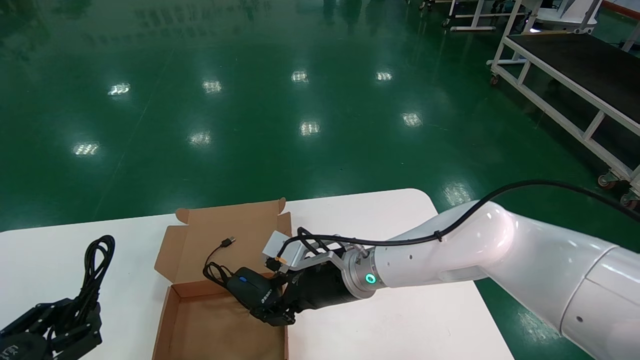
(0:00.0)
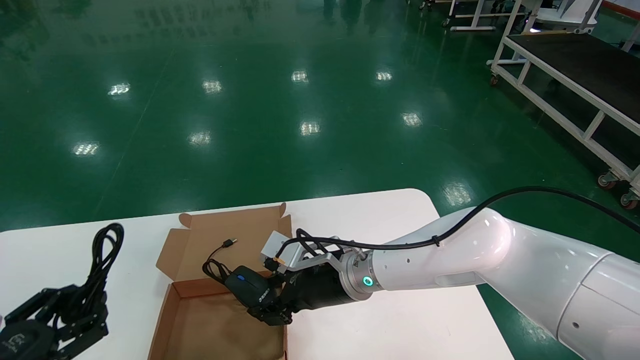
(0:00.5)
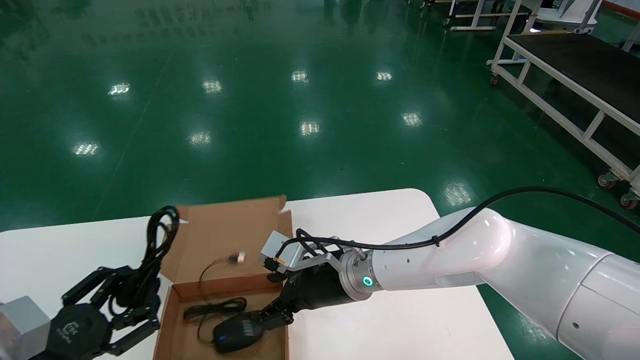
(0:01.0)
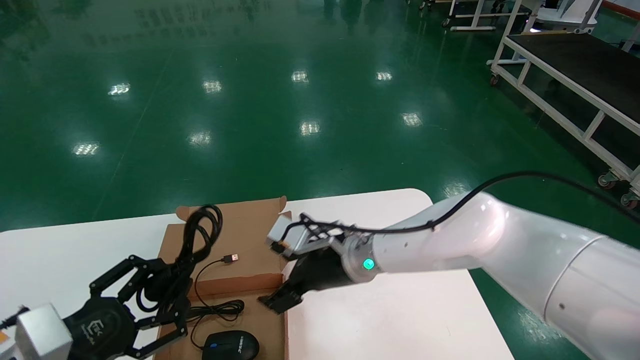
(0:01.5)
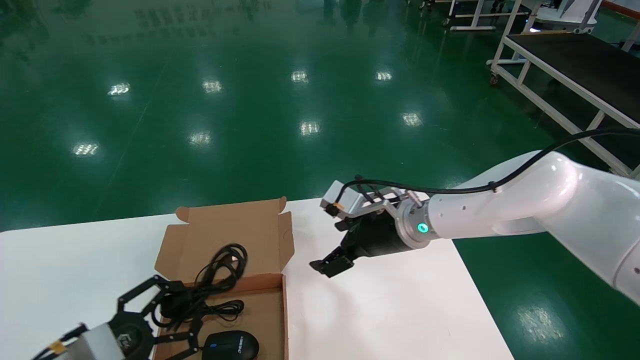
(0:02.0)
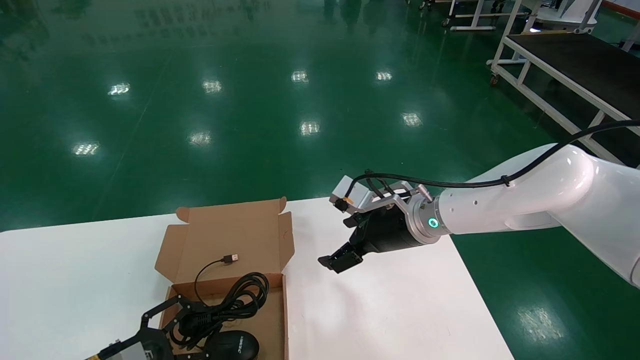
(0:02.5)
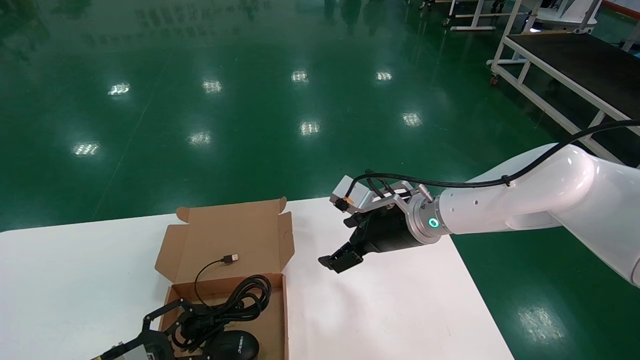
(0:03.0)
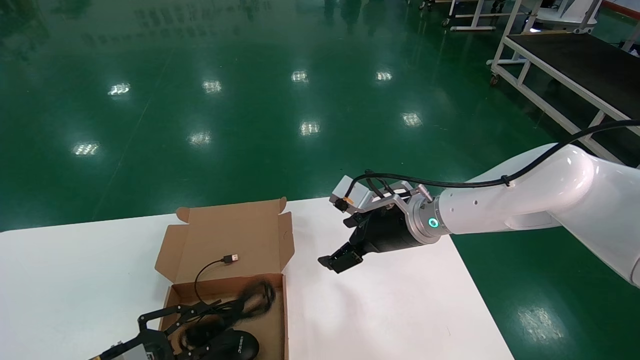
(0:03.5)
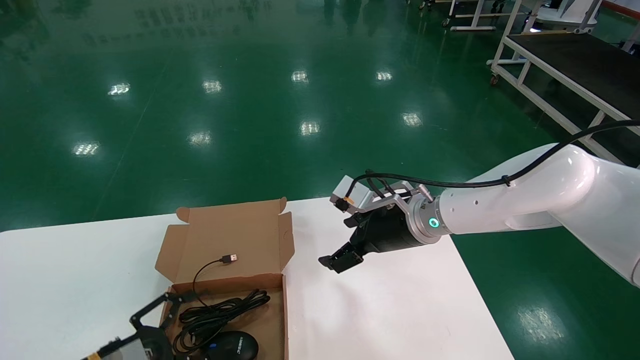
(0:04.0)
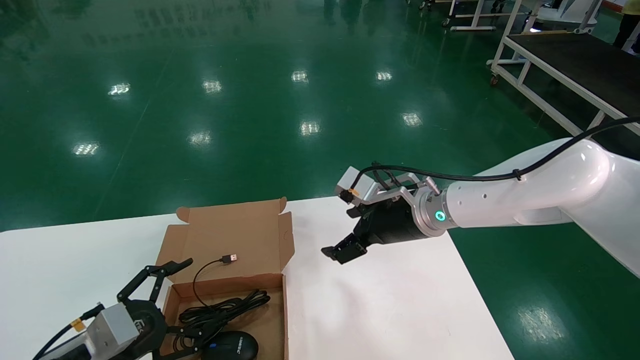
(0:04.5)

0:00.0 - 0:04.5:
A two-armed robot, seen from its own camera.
Step, 0:00.0 - 0:03.5: Place the mouse and data cable in the paper box.
0:00.0 - 0:02.0: Both grippers move upward, some 5 cm. The left gripper closes its fingers. Meanwhile the right gripper closes its fingers.
0:02.0 - 0:04.5: The left gripper travels to the right by approximately 5 cm. The right gripper goes approximately 20 cm to the left and backward.
